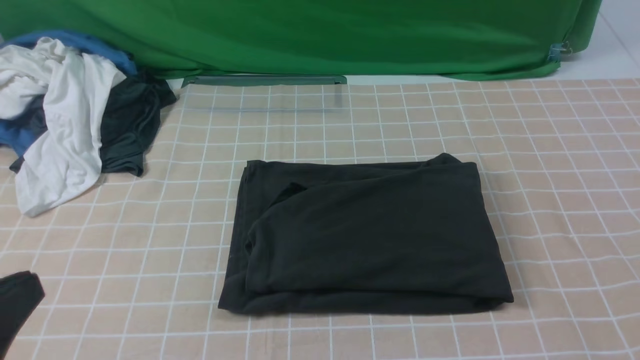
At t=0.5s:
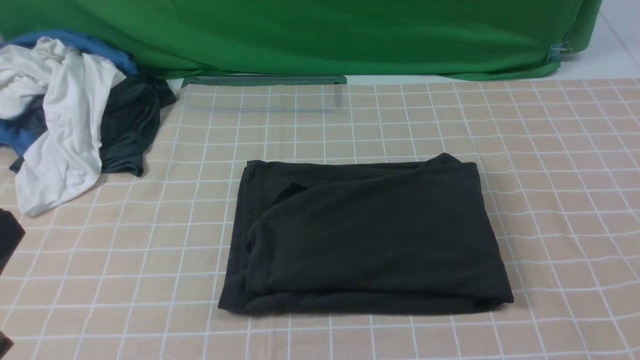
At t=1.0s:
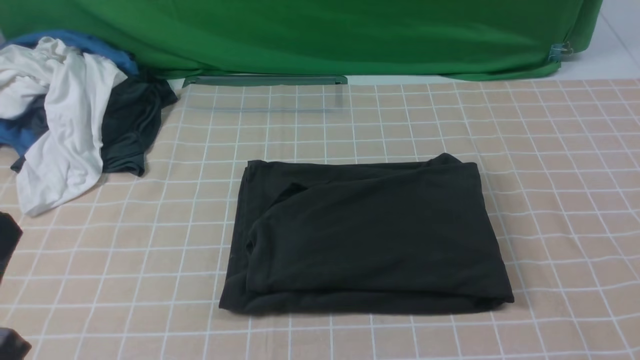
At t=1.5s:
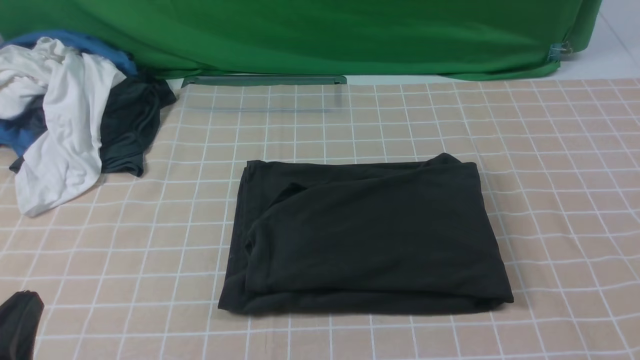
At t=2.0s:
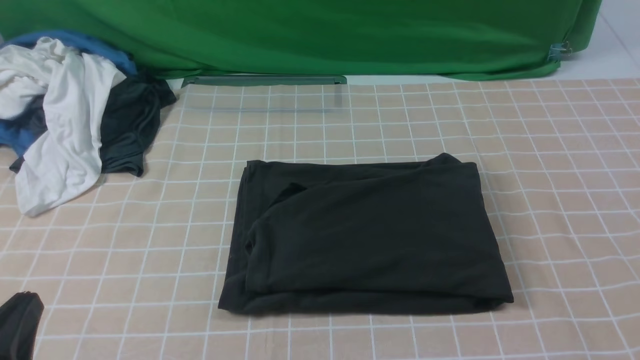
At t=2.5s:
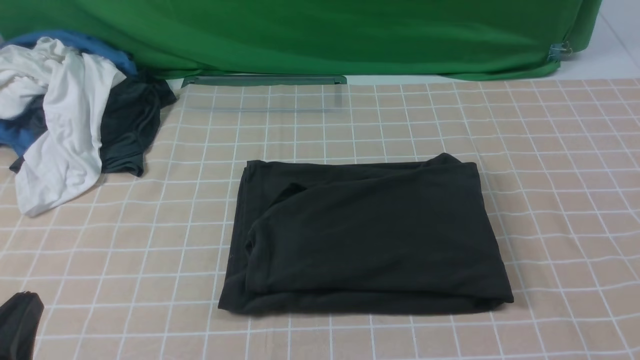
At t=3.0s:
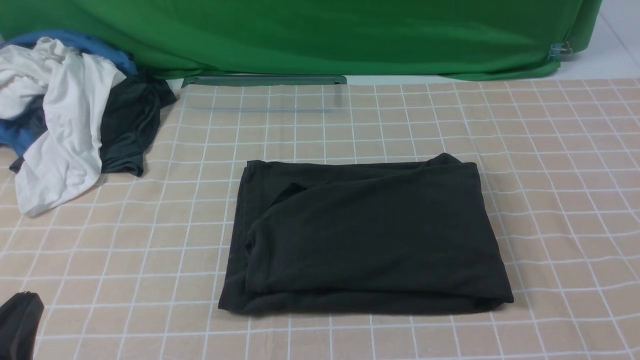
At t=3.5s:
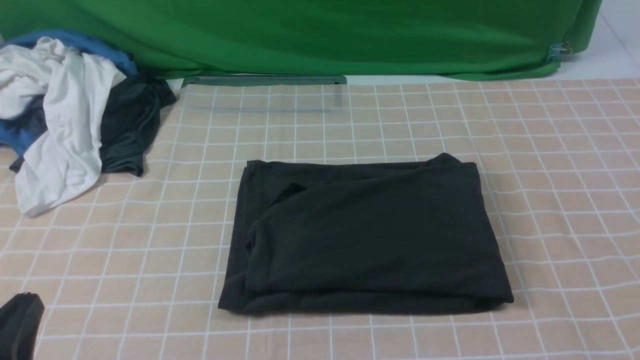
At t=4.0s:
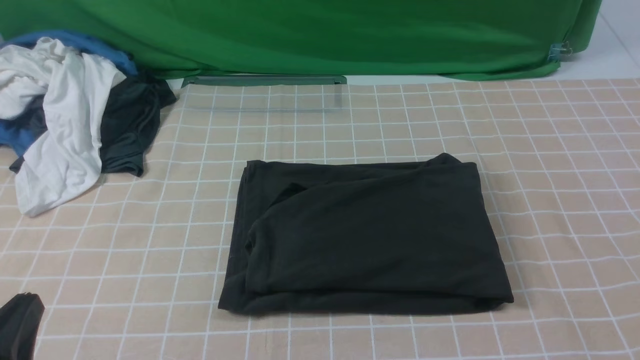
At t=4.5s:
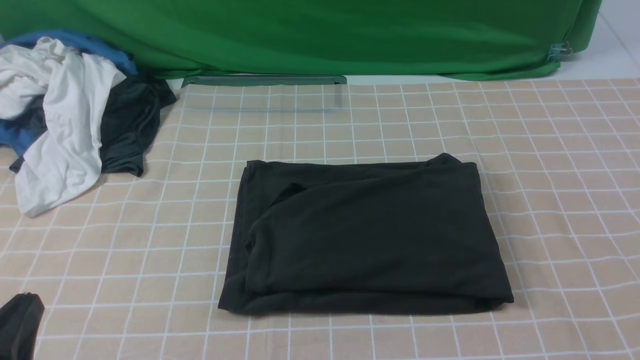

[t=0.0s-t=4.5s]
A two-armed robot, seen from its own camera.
t=0.0s to t=2.0s: The left gripper moves downward, some 10 cm.

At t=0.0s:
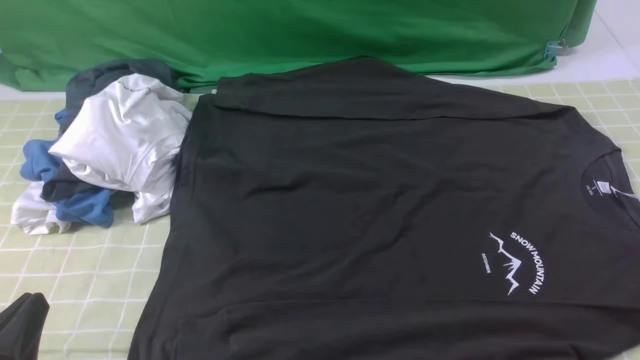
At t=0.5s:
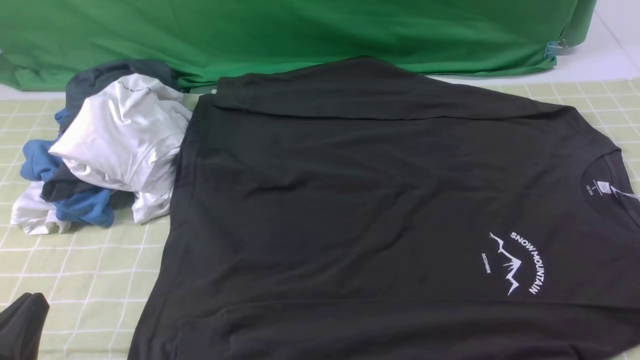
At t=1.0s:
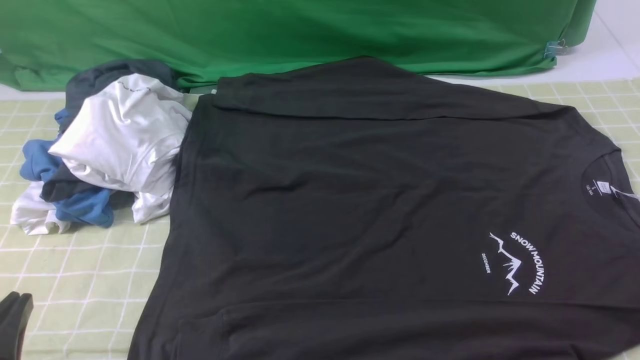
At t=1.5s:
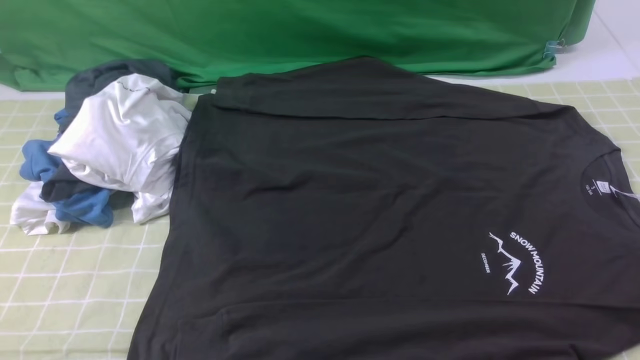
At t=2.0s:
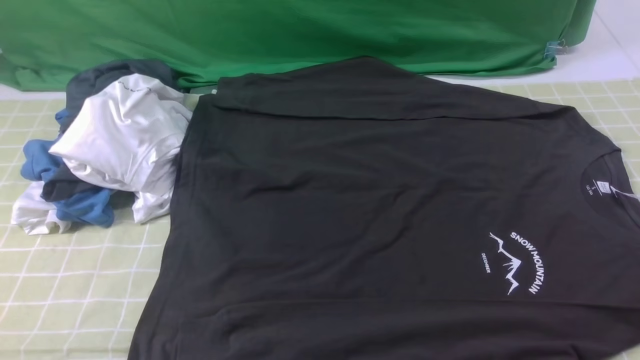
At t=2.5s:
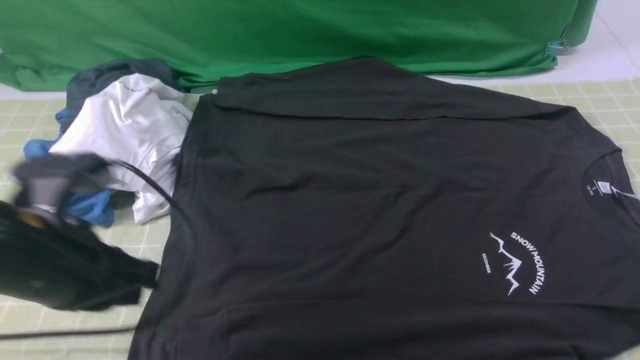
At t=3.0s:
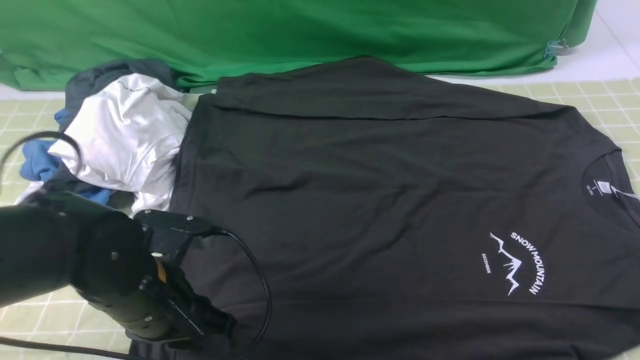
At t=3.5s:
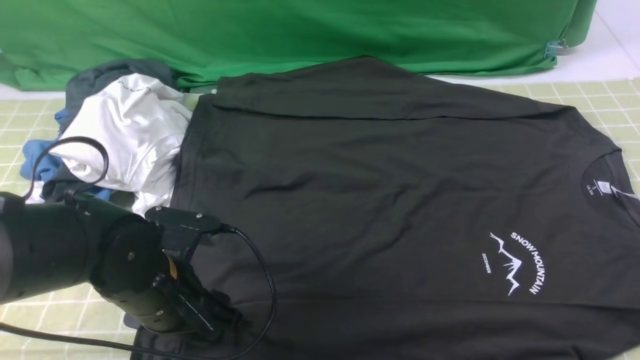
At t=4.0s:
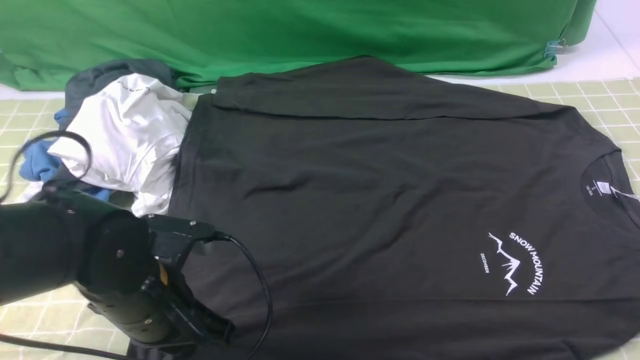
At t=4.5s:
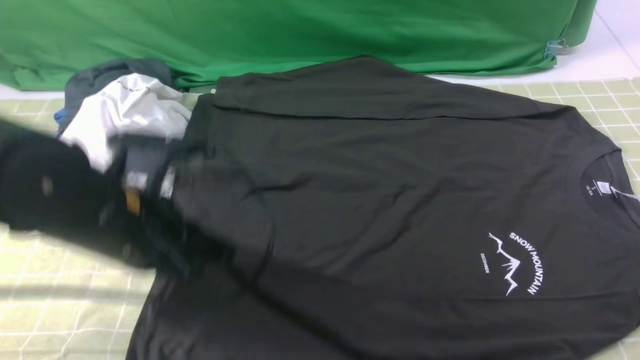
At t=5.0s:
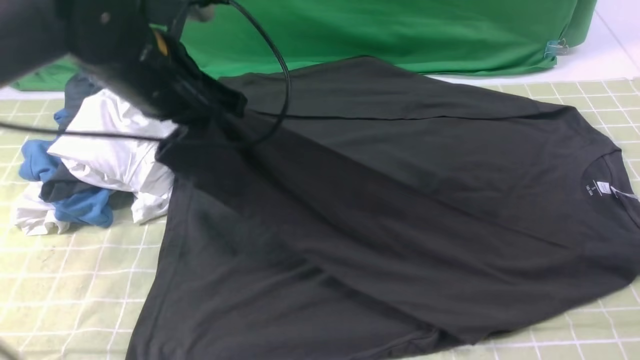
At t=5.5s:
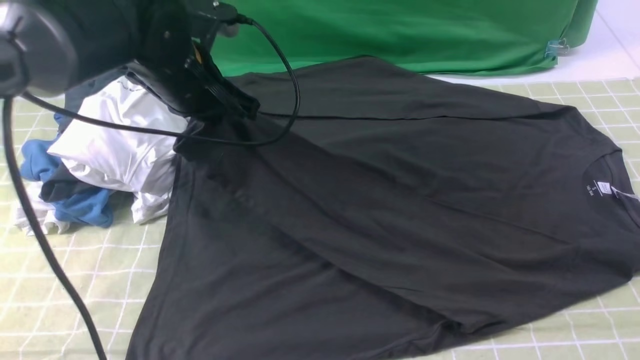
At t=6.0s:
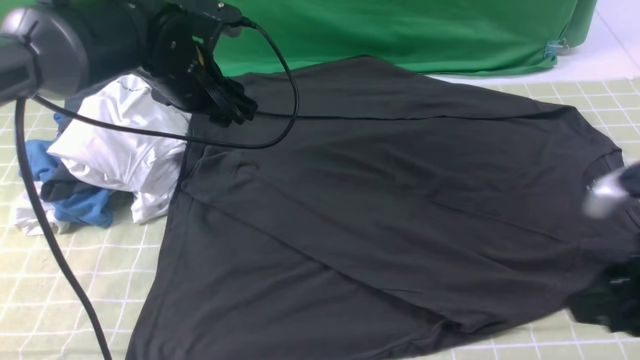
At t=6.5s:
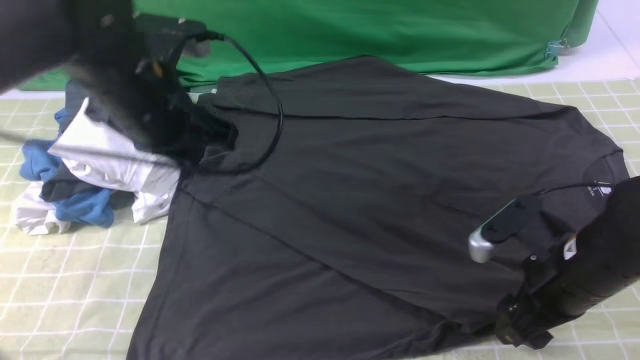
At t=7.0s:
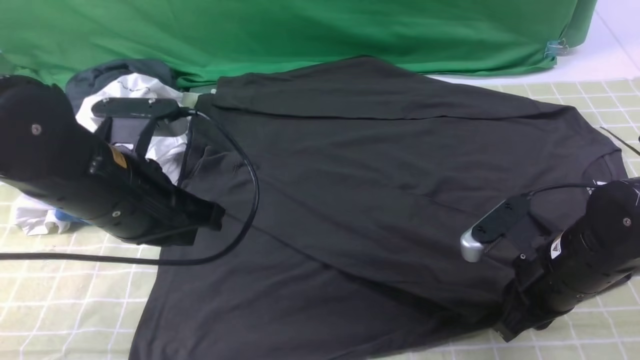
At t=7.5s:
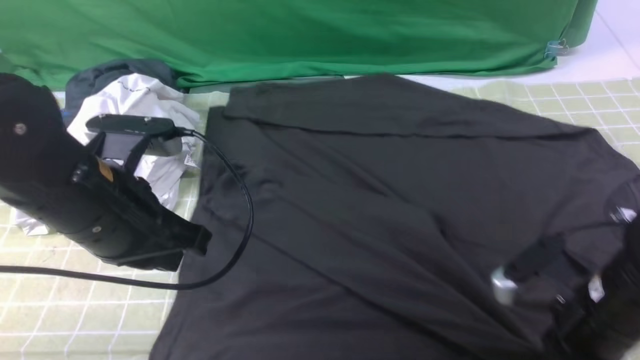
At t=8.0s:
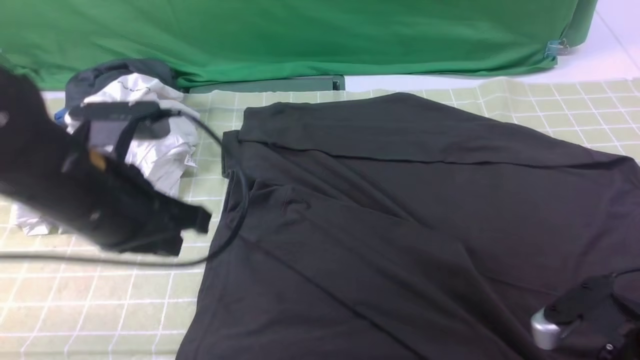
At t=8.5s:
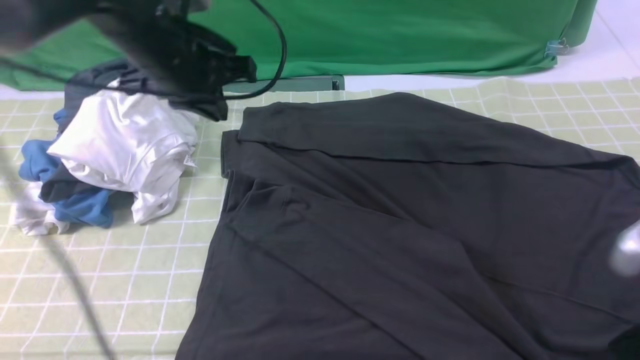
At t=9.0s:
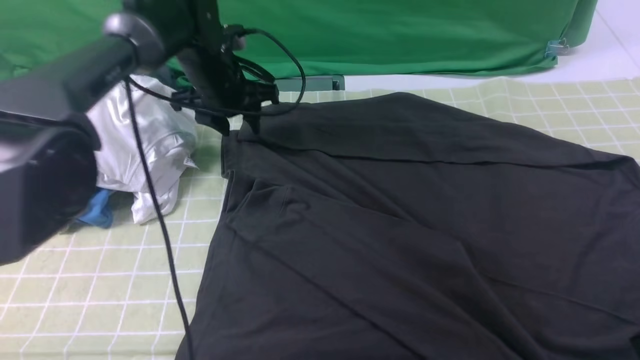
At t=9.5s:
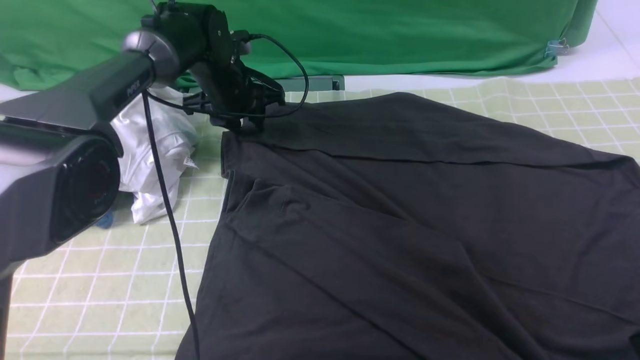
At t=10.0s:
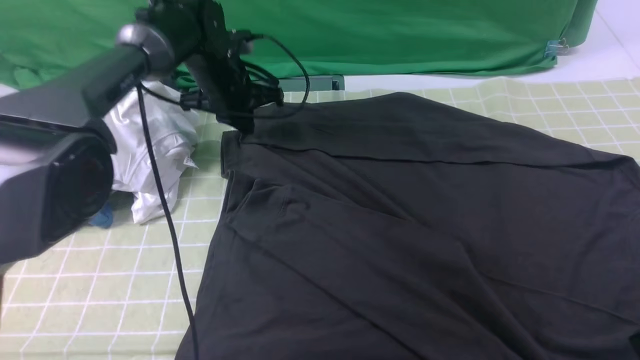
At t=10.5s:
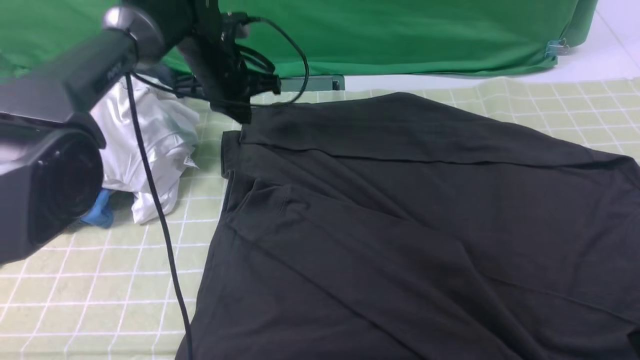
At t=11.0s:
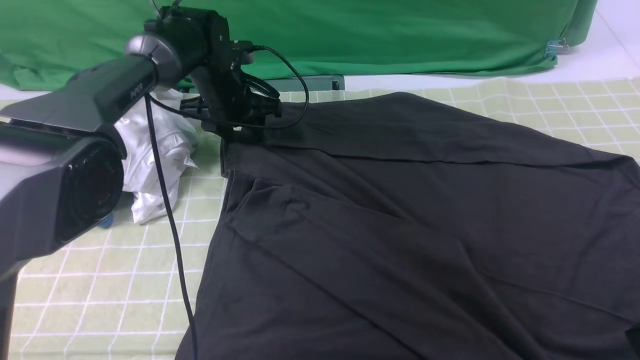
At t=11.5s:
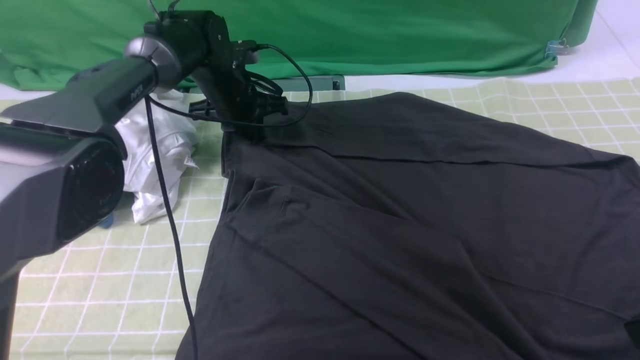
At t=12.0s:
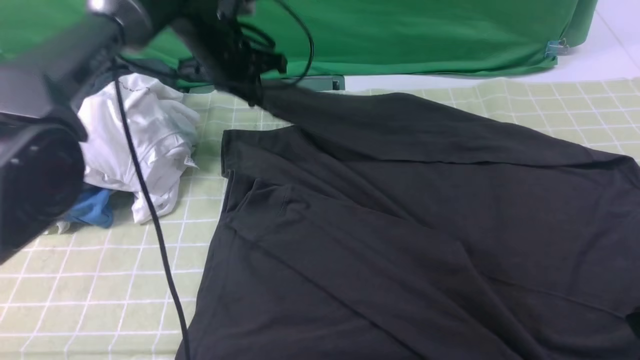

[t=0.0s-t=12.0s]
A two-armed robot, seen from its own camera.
Step, t=0.0s to t=3.5s: use the left arm to clamp the cuff closest to it.
Step, t=4.5s to t=6.0s: use the left arm to drag and place the cuff at the centered position on the left edge of the fabric.
Step, t=6.5s to t=11.5s: use the left arm to clamp the cuff farthest from it.
t=0.0s to t=2.0s: The left gripper is displaced upward by about 15 cm.
t=2.0s to t=4.0s: The right gripper moves upward and forward, some 10 cm, and closes its fingers, while the left gripper moves downward, forward and to the right, roughly 25 cm, and opens, then closes once more.
t=4.0s to t=6.0s: The left gripper moves forward and upward, approximately 20 cm, and opens up. The right gripper moves forward and downward, some 10 cm, and opens.
t=6.0s to t=8.0s: The right gripper travels downward by approximately 5 cm, and closes and opens again. The left gripper is displaced backward by some 15 cm, and closes its fingers.
t=8.0s to t=10.0s: The right gripper is displaced upward by approximately 10 cm, and closes its fingers, while the left gripper moves forward, about 25 cm, and opens and closes again.
t=10.0s to t=12.0s: The left gripper ends up about 5 cm from where it was, and opens and closes again.

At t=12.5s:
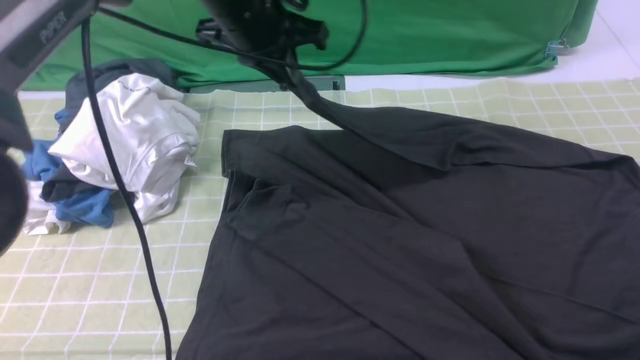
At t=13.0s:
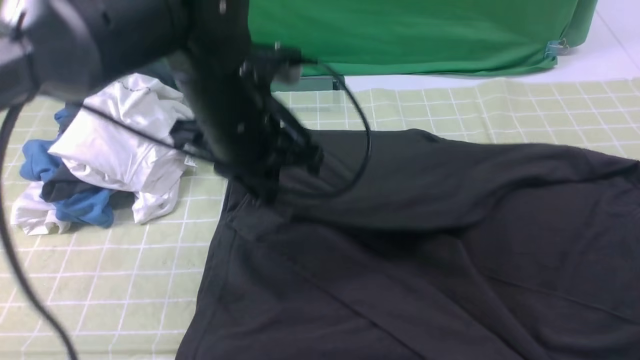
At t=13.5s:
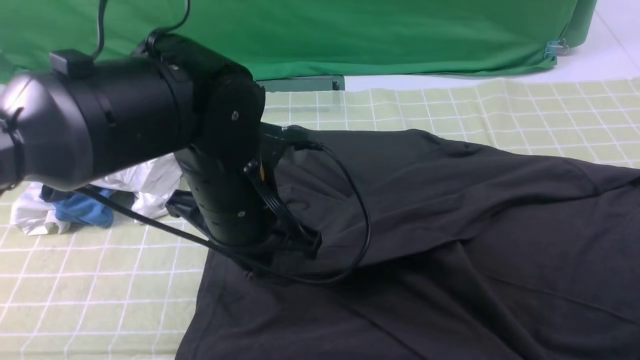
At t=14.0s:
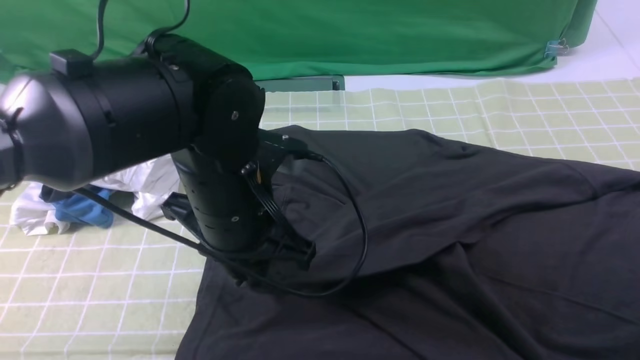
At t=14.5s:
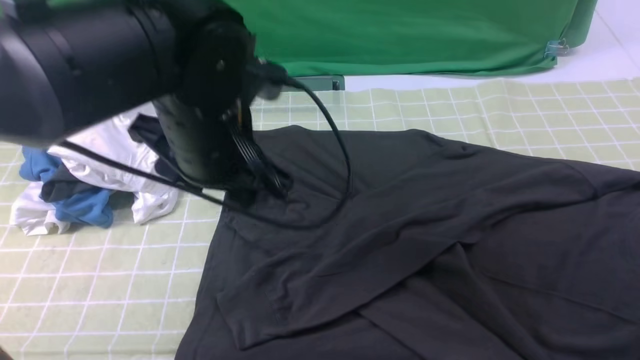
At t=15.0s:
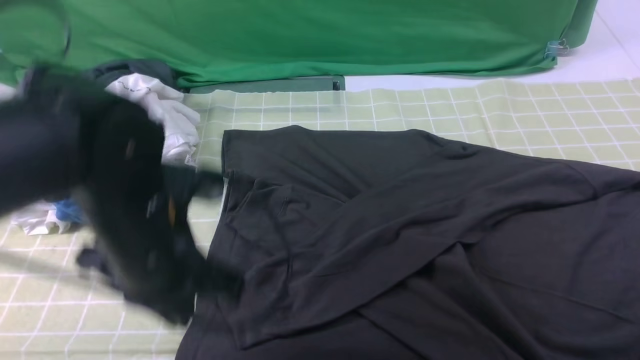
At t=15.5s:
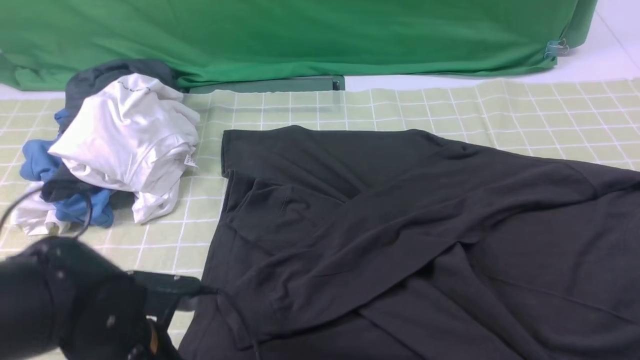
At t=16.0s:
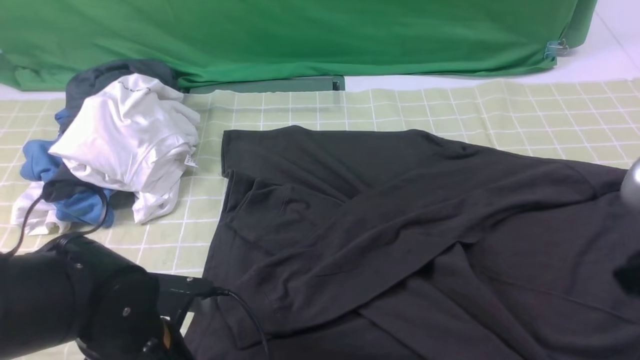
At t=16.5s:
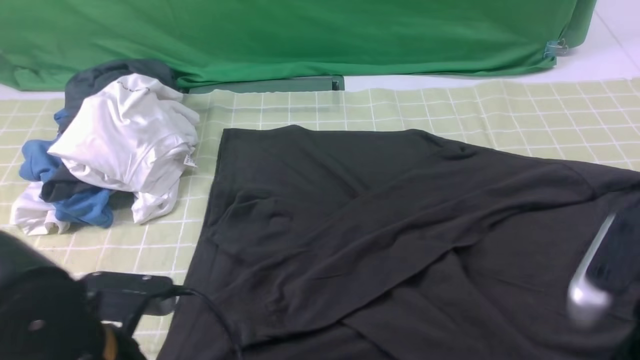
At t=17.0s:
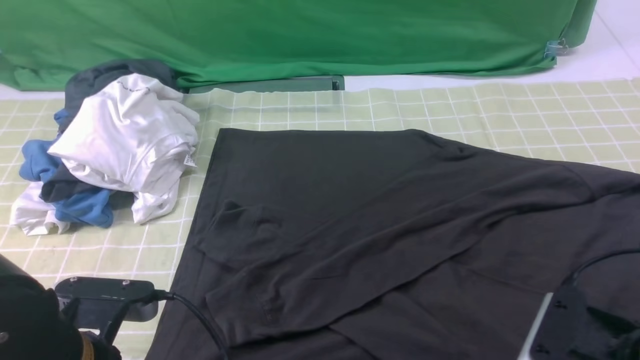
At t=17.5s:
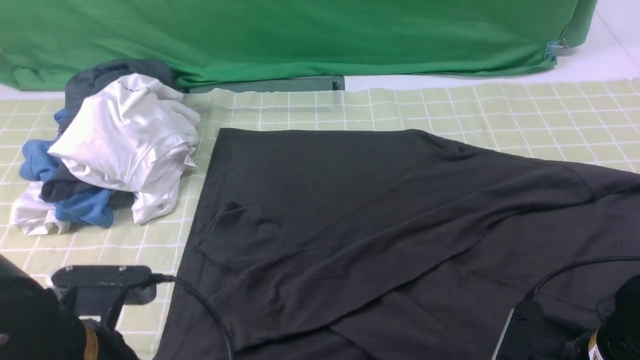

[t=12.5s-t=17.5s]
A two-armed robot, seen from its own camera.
Step, t=12.5s to t=14.0s: use the left arm to drag and drop the cuff onto the cuff closest to the left arm.
Step, t=14.5s to t=17.0s: use both arms simultaneously to clamp the lower edge of the clothing fabric.
t=12.5s to t=15.0s: The left gripper goes approximately 20 cm backward and downward, and opens, then closes again.
t=15.0s to t=17.5s: The left gripper is displaced backward by roughly 10 cm, and opens, then closes again. Meanwhile the right gripper is displaced downward by some 20 cm, and opens and closes again.
